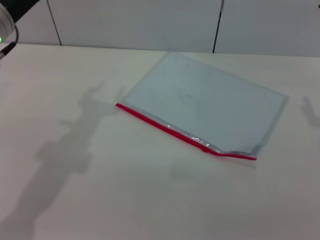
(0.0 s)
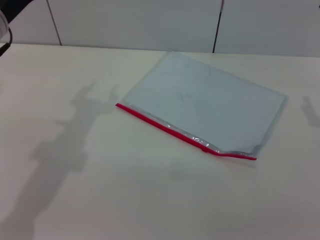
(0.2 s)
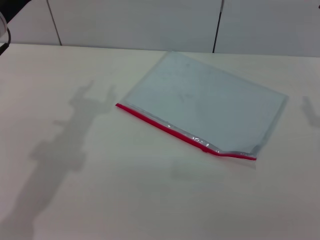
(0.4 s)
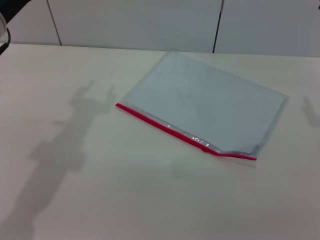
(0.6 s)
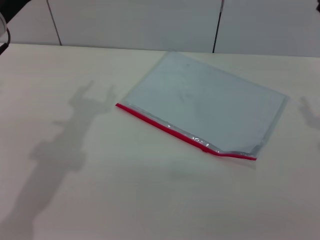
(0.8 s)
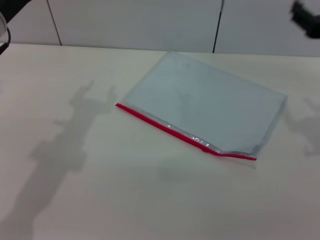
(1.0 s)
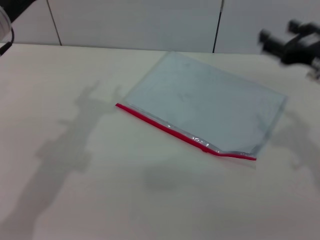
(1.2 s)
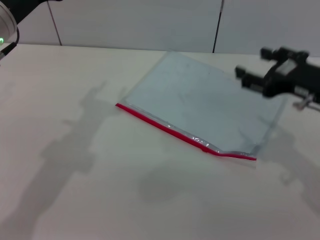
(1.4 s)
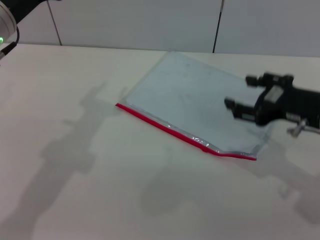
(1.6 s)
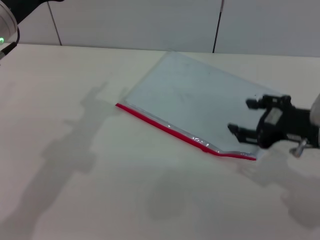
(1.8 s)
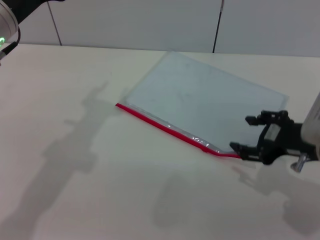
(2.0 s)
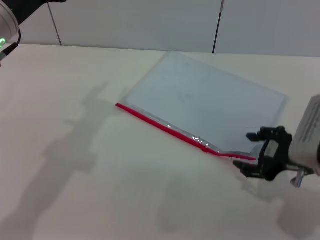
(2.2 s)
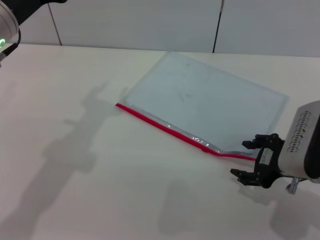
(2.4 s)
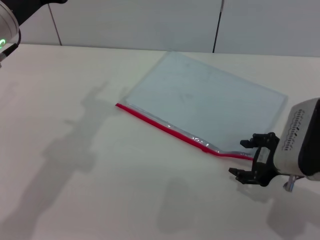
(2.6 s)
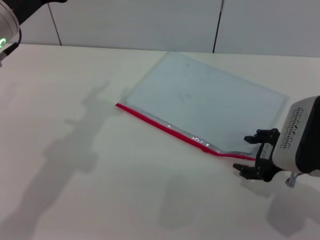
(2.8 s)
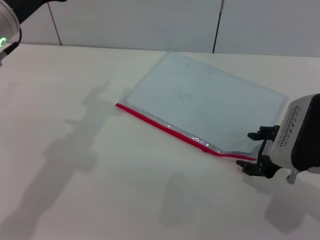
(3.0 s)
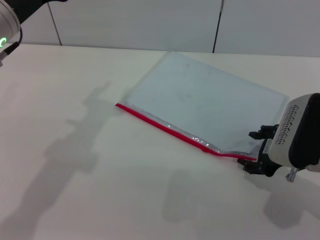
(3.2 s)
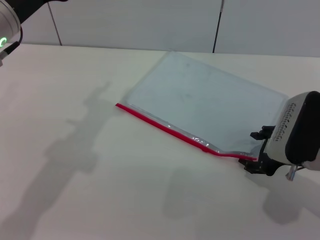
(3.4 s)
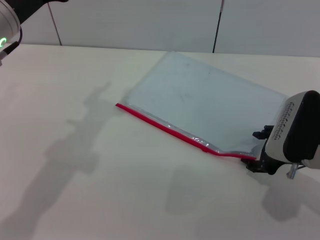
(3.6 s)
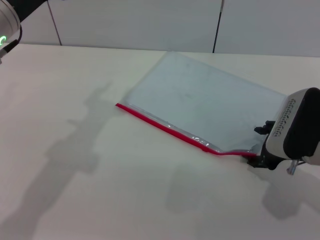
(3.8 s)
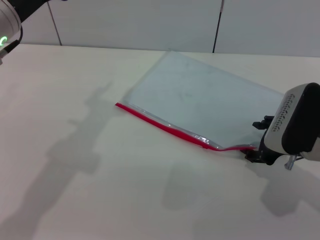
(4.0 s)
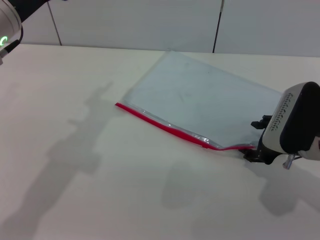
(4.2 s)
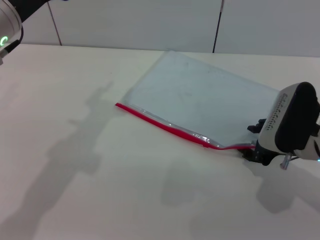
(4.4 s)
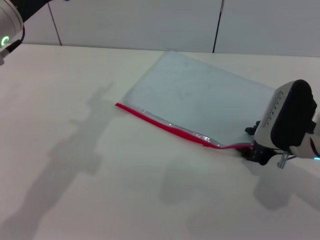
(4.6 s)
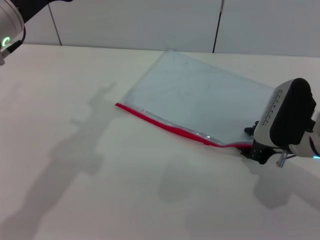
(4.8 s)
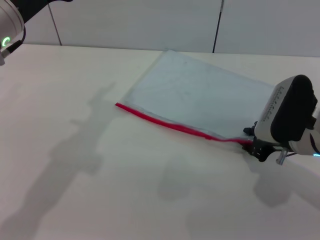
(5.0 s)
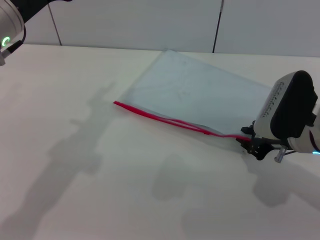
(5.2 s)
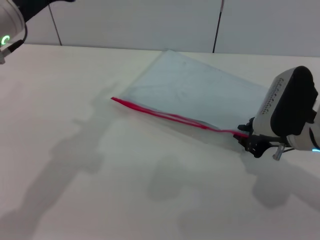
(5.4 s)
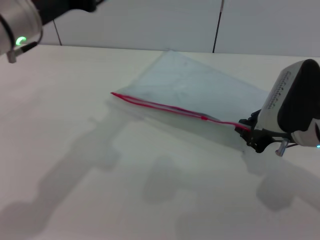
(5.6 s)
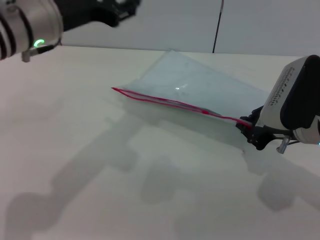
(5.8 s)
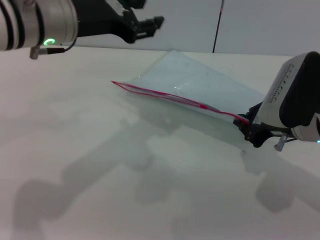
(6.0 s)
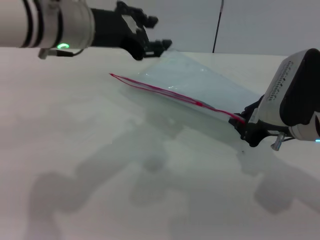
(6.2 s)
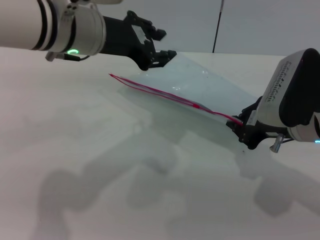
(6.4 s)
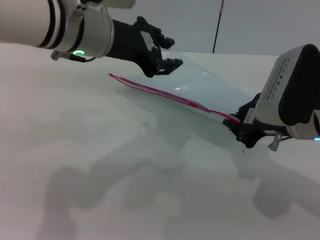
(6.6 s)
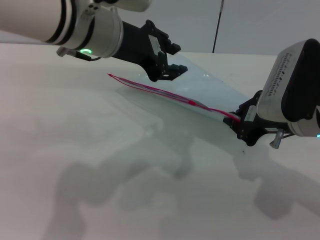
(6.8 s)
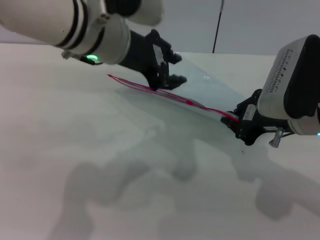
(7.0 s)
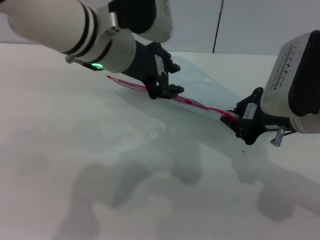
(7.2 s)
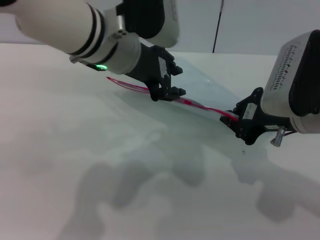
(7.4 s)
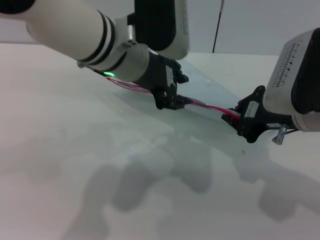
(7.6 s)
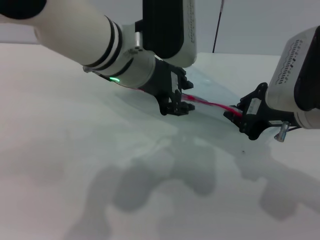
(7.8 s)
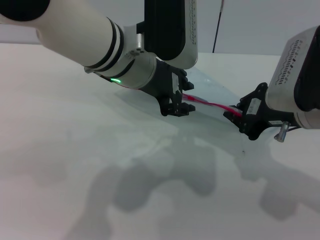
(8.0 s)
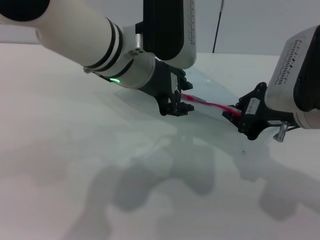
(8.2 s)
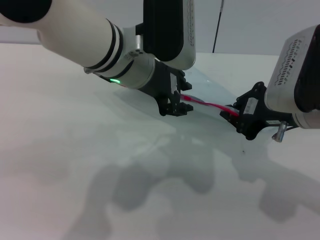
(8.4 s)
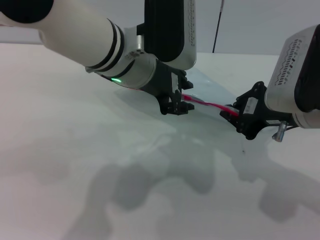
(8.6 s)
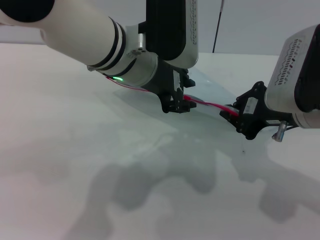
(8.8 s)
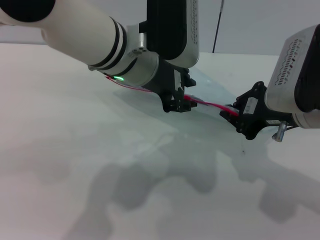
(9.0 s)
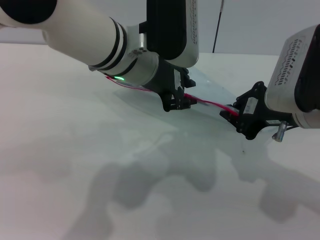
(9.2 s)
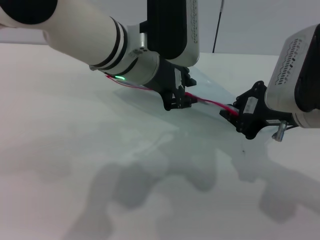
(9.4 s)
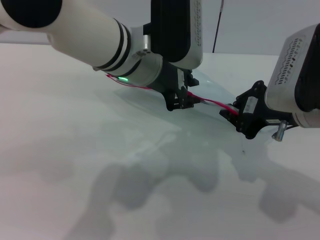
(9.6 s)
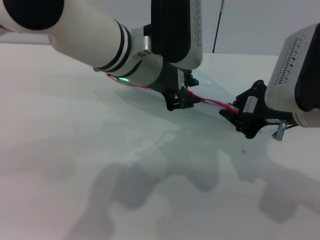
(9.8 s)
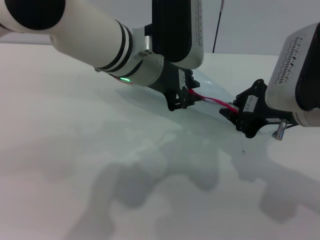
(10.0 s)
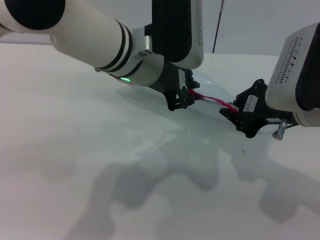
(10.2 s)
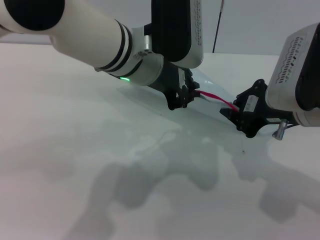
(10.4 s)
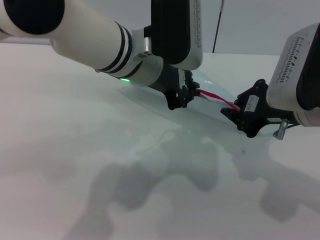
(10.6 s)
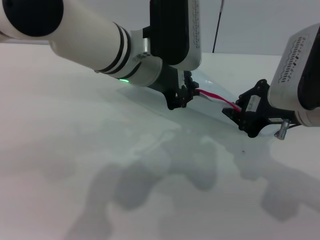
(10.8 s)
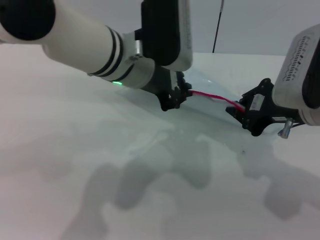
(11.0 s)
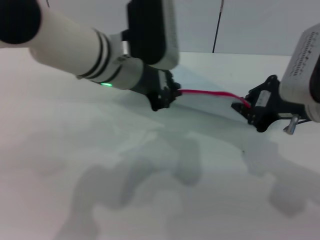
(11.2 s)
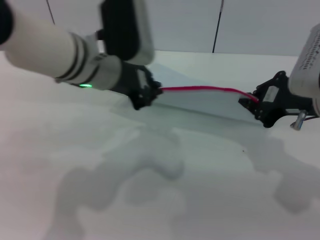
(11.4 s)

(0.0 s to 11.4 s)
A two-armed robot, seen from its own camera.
Step, 0.0 s - 5.4 s: Pick up the transparent plastic bag with the right gripper.
1.4 s - 2.8 s: The right gripper heads downward, covering about 5 cm.
2.8 s - 4.2 s: The grippers move only a little.
4.2 s - 5.6 s: The right gripper closes.
5.6 s - 7.2 s: The left gripper shifts roughly 10 cm to the right, while the right gripper shifts by about 5 cm.
7.2 s - 8.6 s: The grippers move only a little.
8.6 s - 10.0 s: The two grippers keep their place.
10.0 s - 11.4 s: The left gripper moves to the left, some 5 cm, and closes.

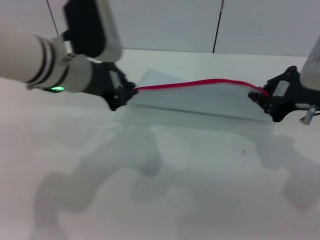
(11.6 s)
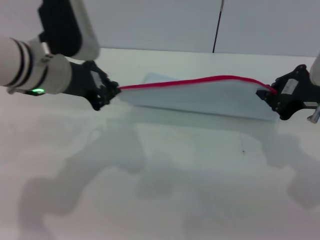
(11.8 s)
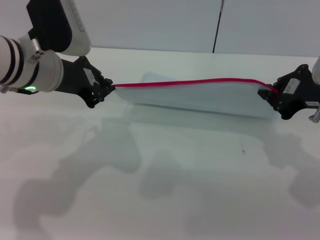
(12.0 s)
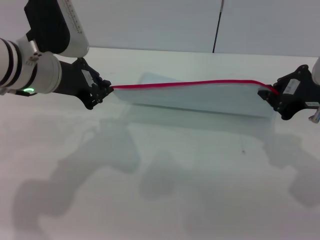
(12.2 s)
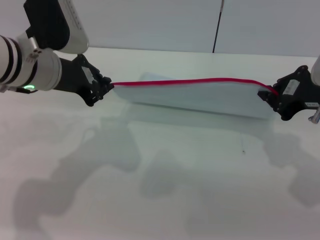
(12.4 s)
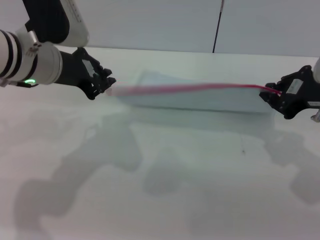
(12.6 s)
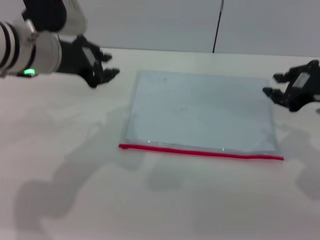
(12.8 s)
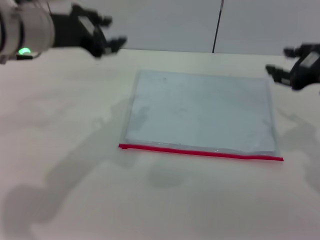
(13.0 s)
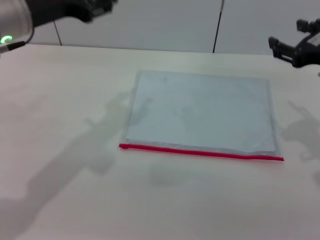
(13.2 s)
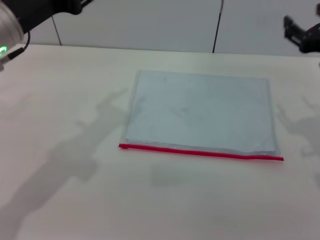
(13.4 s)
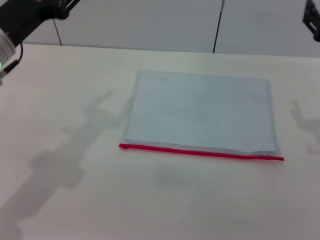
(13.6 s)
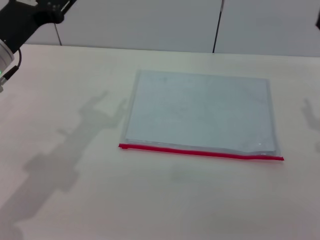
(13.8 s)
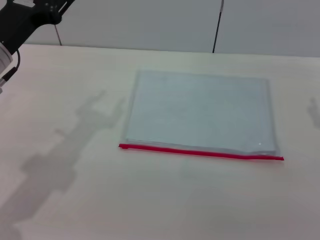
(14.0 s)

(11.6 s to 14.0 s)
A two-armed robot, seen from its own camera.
Step, 13.0 s - 13.4 s: Place the transparent plastic bag.
12.8 s - 14.0 s: The right gripper opens up, while the left gripper moves to the left, roughly 5 cm, and opens up.
